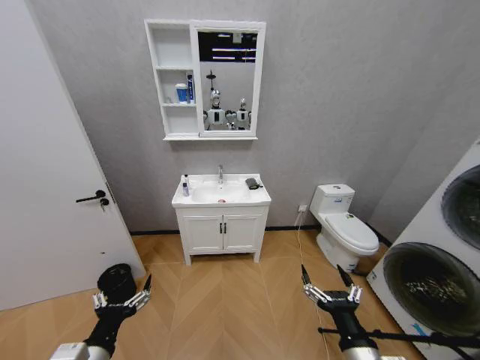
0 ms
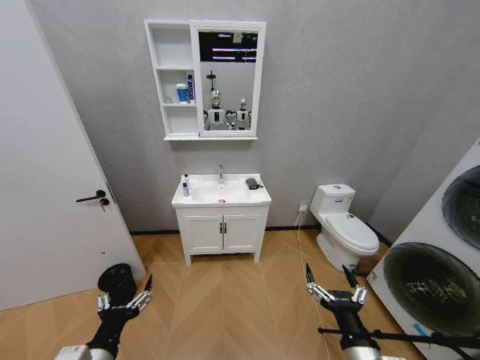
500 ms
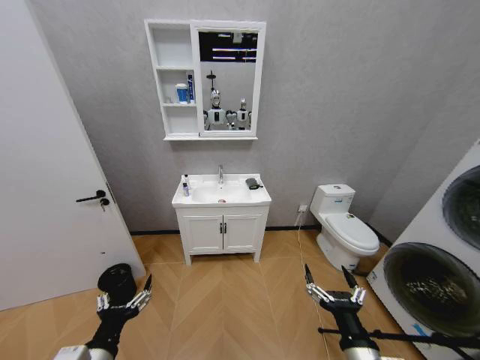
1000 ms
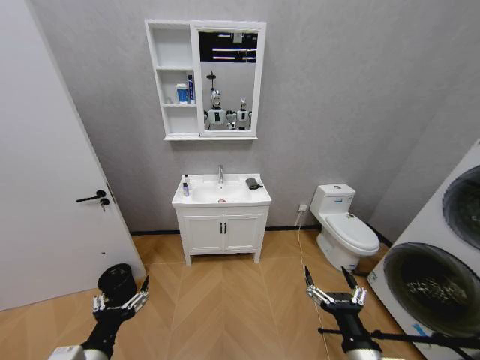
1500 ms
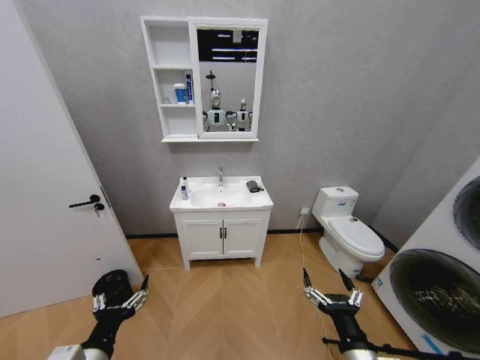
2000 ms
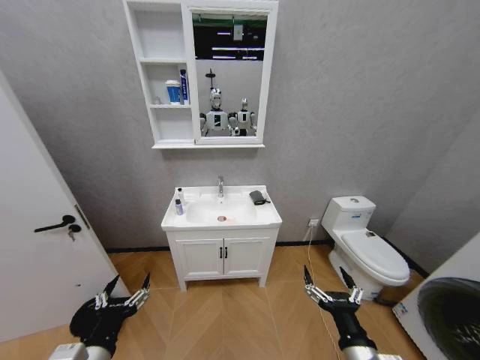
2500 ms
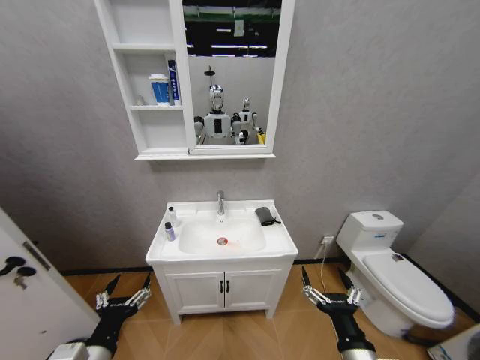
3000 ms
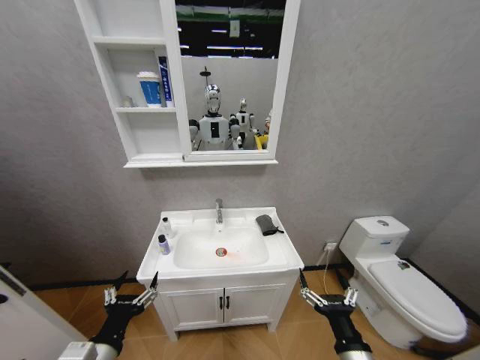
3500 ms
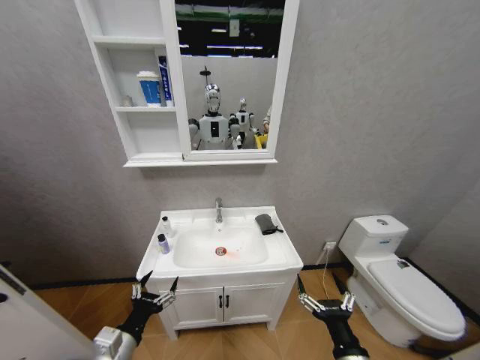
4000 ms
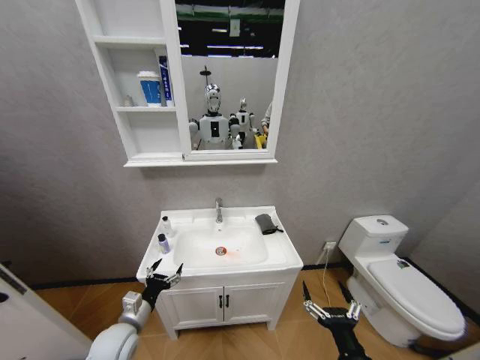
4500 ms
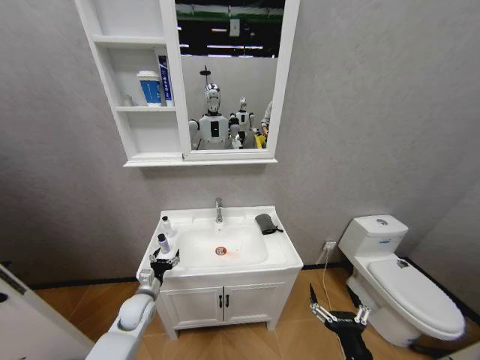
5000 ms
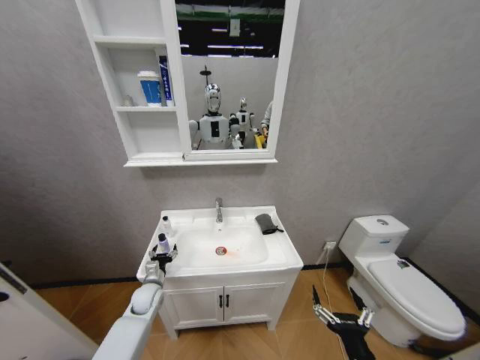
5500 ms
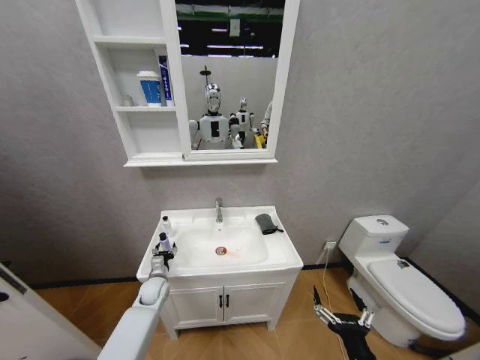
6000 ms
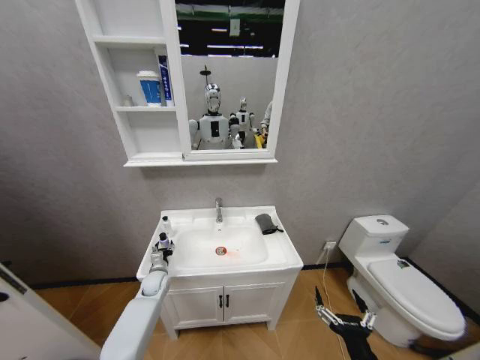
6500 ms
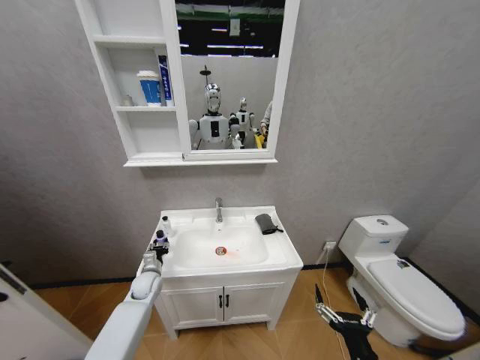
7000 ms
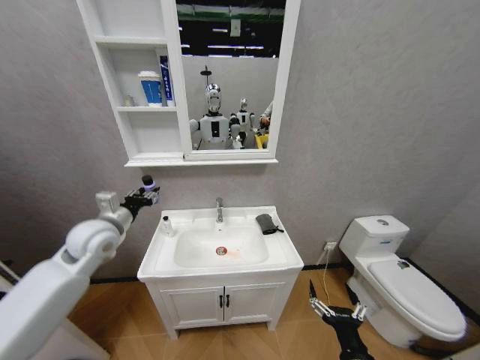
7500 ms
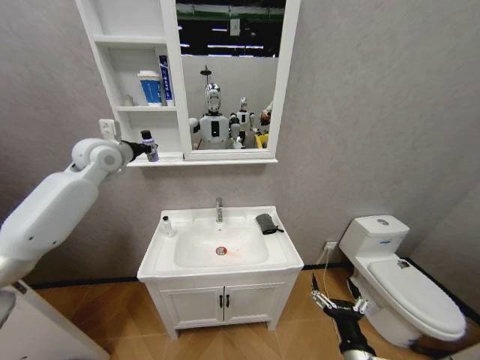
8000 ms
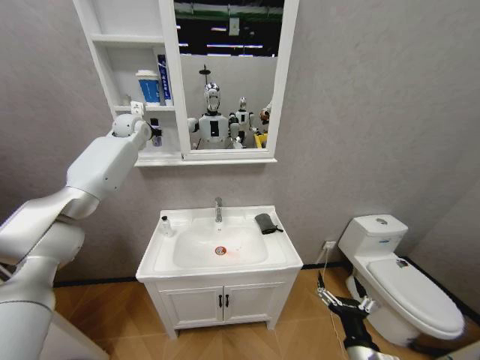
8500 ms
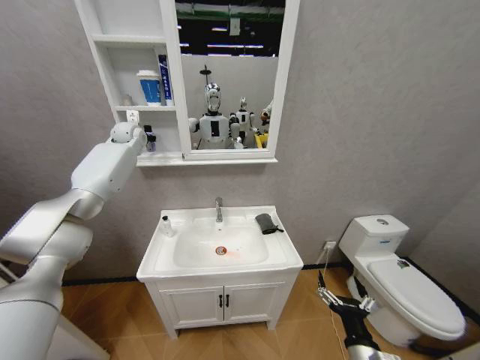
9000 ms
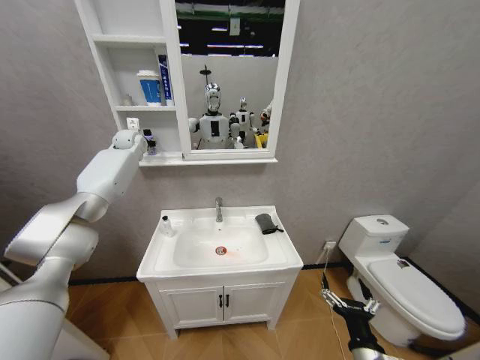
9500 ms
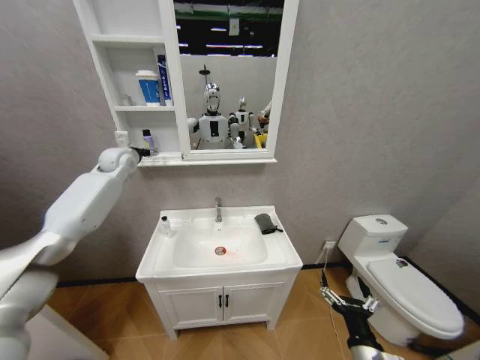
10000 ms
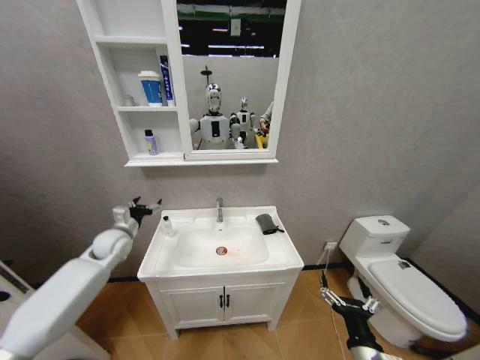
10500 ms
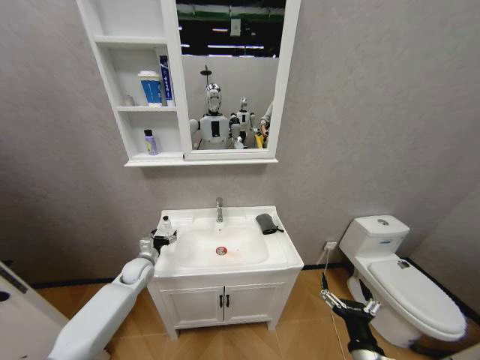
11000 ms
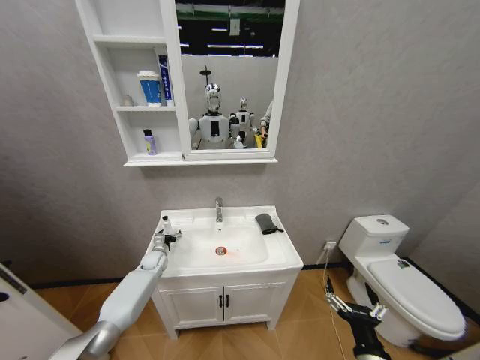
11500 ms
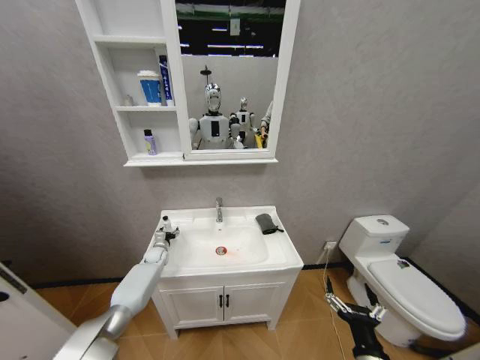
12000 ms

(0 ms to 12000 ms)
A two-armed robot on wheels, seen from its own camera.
Task of the whole recording: Move facial cleanser and shampoo from washbasin to cabinet, then wipe washbasin with towel.
2000 ms - 4000 ms: The left gripper heads downward, covering some 5 cm.
4000 ms - 6000 ms: The left gripper heads forward and downward, covering approximately 30 cm.
6000 ms - 8000 ms: The left gripper shifts approximately 50 cm upward, and closes up.
8000 ms - 10000 ms: The left gripper moves forward and downward, approximately 10 cm, and opens.
10000 ms - 12000 ms: The left gripper shifts approximately 40 cm downward.

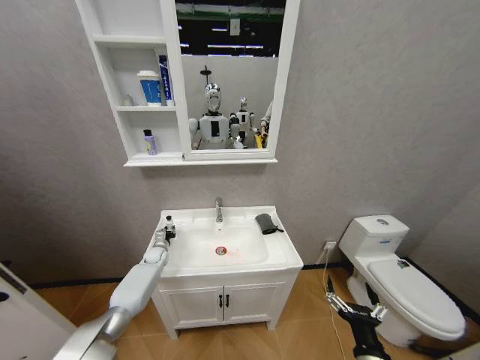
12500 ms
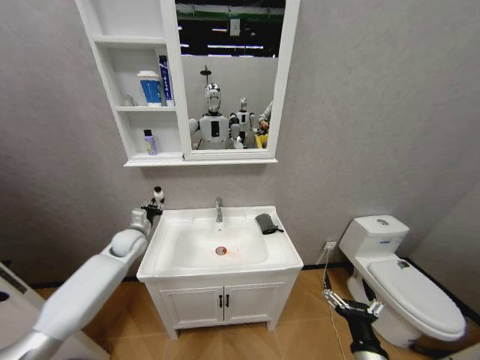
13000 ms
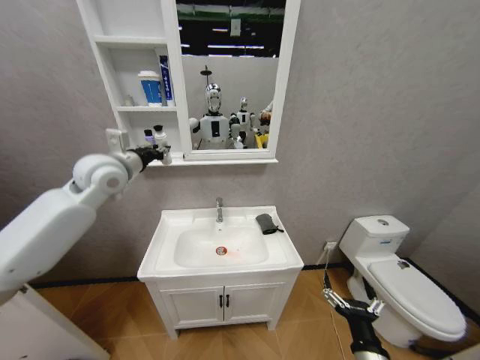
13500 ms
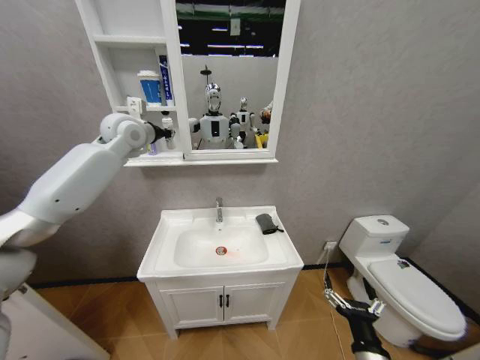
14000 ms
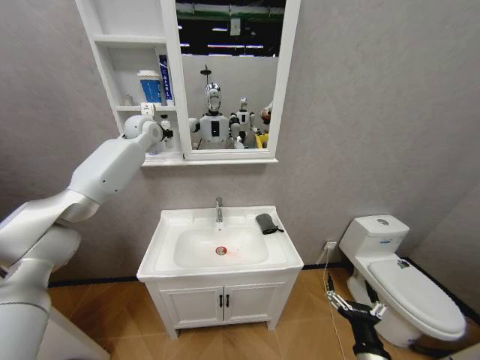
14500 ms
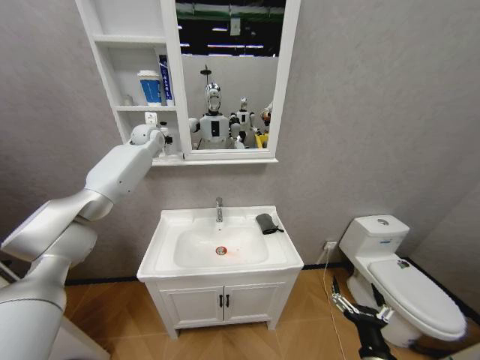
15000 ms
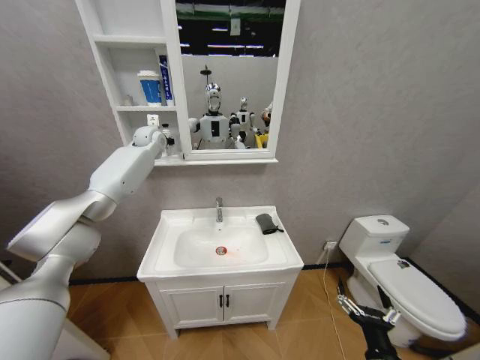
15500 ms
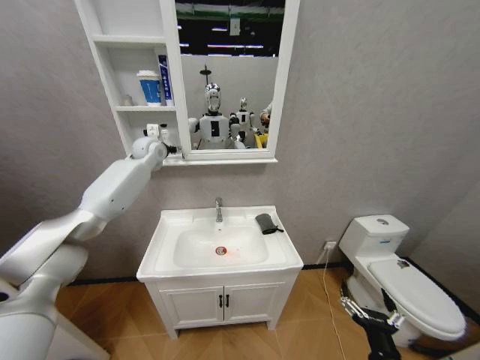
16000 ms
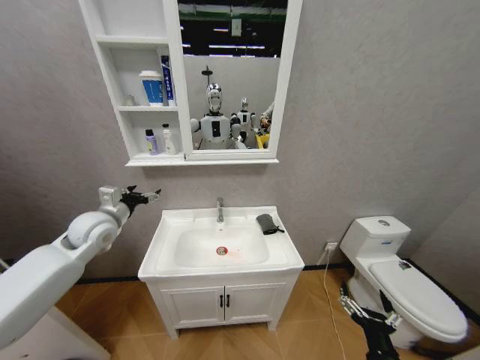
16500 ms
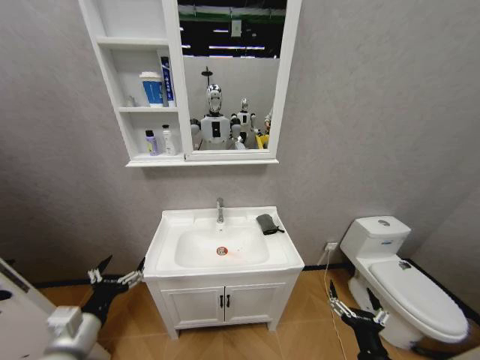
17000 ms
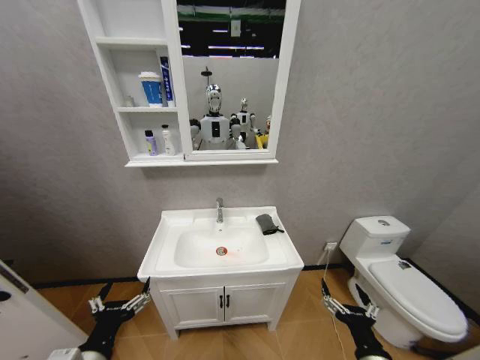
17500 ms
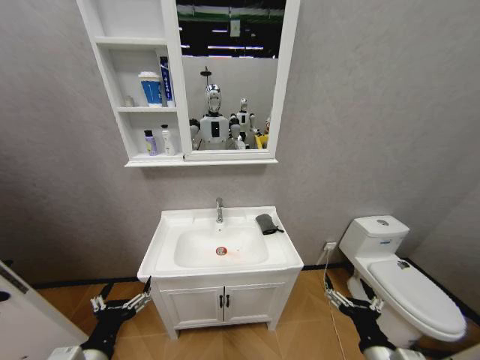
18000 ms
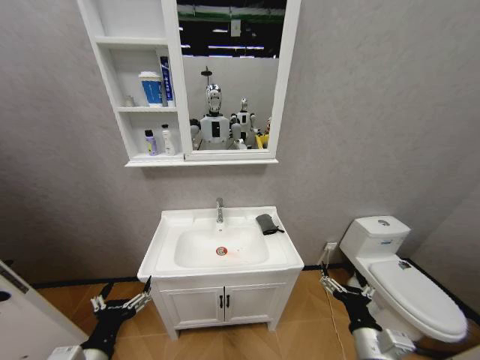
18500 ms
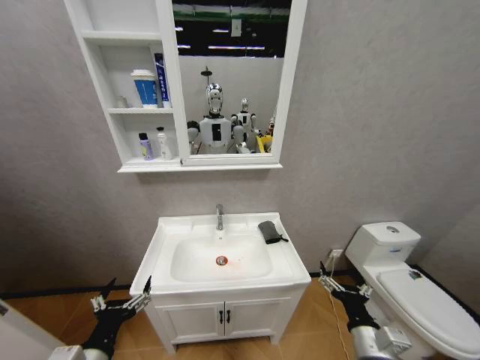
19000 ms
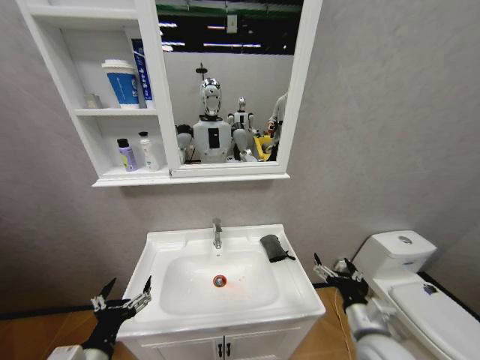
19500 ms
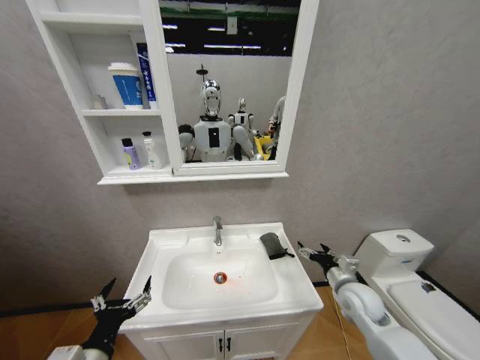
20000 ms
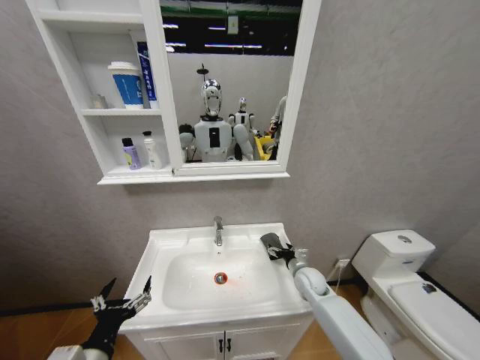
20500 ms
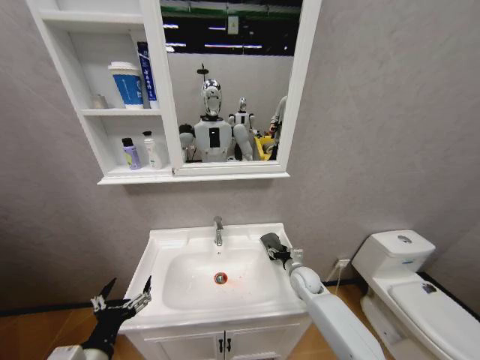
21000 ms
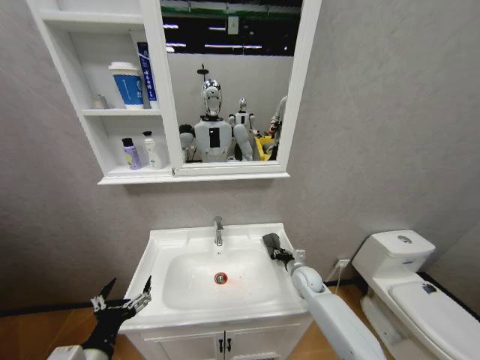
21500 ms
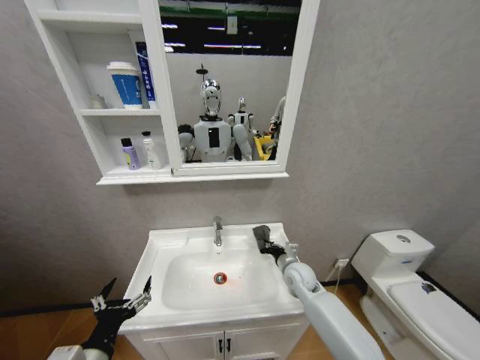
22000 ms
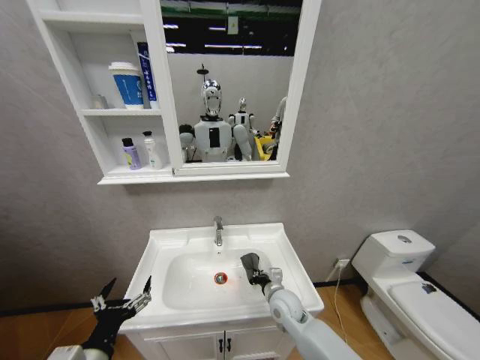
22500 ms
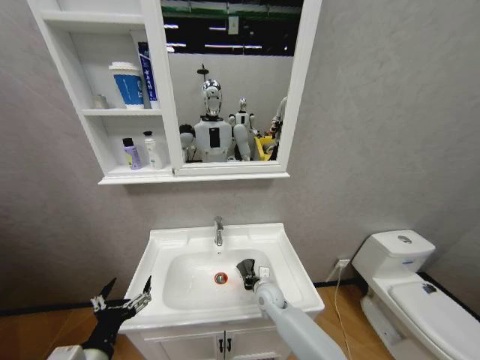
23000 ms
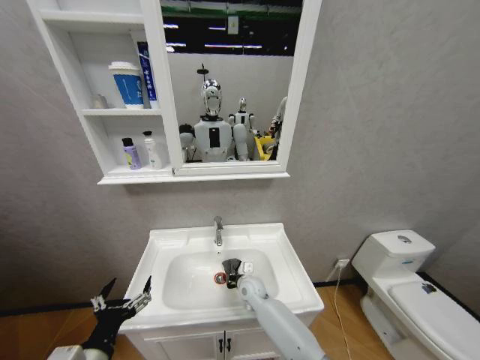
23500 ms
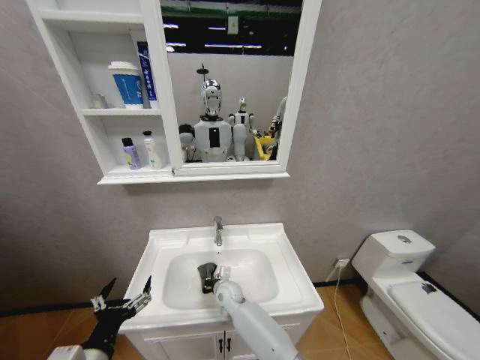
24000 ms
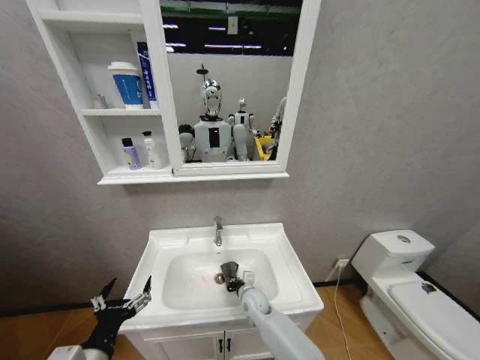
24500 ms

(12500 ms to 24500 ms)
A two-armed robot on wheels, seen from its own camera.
Task of the whole recording: Move facial cleanser and shampoo from washbasin to cabinet, then wipe washbasin with towel.
12500 ms - 14500 ms: The left gripper travels upward by some 50 cm.
14500 ms - 16500 ms: The left gripper heads backward and downward, covering roughly 30 cm, and opens up.
16500 ms - 18500 ms: The left gripper is displaced backward by approximately 30 cm, while the right gripper shifts by approximately 5 cm.
18500 ms - 20500 ms: The right gripper travels forward by some 25 cm.
20500 ms - 22500 ms: The right gripper is displaced to the left and backward by approximately 15 cm, and closes up.
22500 ms - 24500 ms: The right gripper is displaced to the left and downward by some 10 cm.

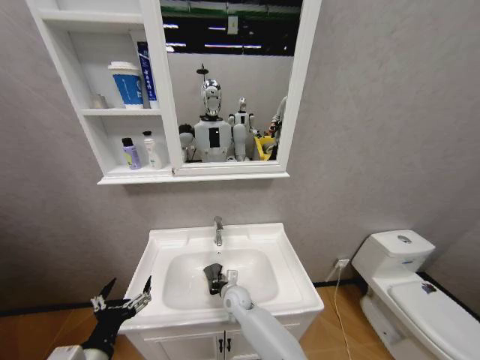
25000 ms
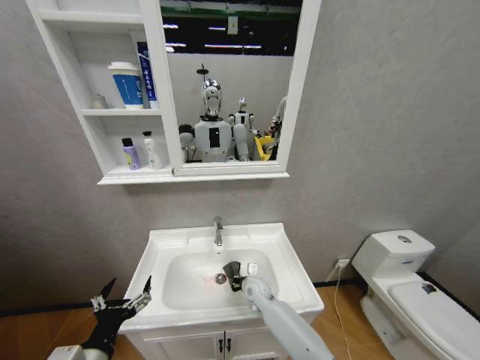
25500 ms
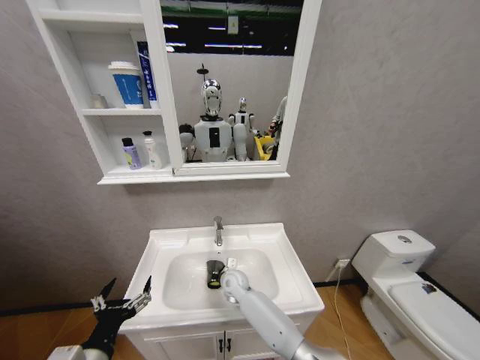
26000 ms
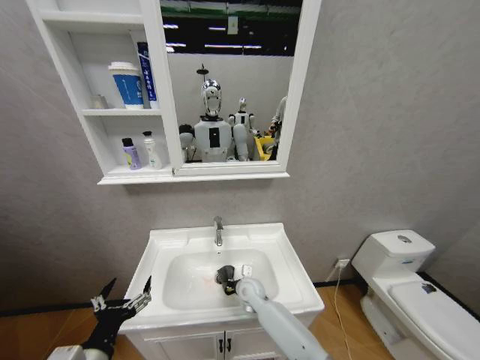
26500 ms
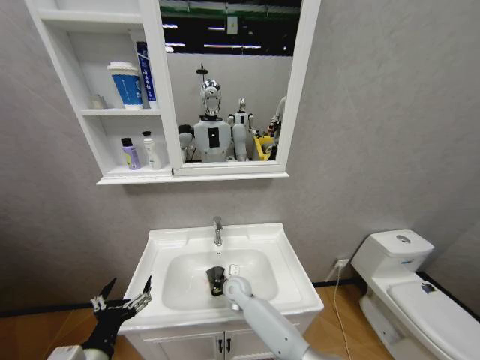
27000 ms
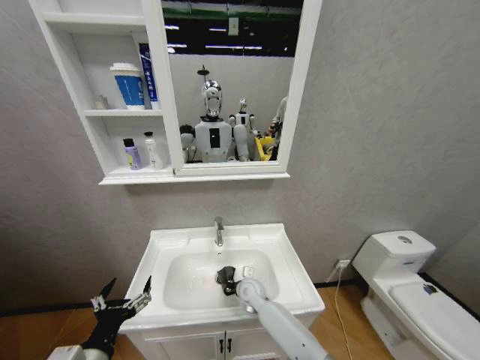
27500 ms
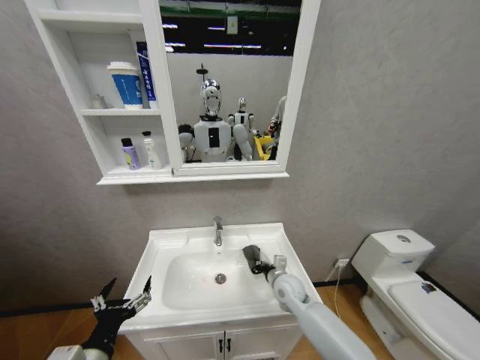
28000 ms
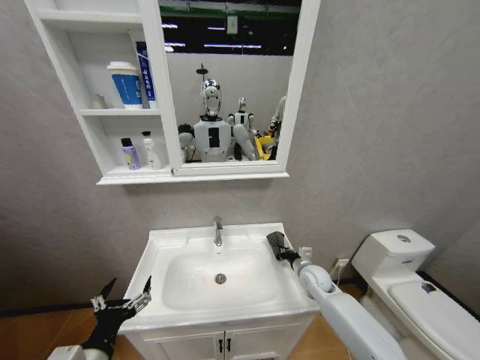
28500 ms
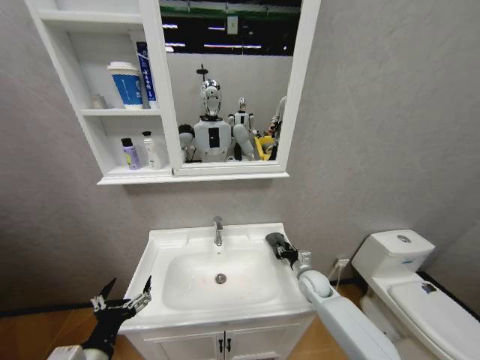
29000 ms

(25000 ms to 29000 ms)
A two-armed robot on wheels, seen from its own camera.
Task of the whole recording: Move facial cleanser and shampoo from washbasin to cabinet, then wipe washbasin with towel.
25000 ms - 27000 ms: The right gripper moves left and right over about 10 cm, changing direction 3 times.
27000 ms - 29000 ms: The right gripper is displaced to the right by about 25 cm, and opens its fingers.
